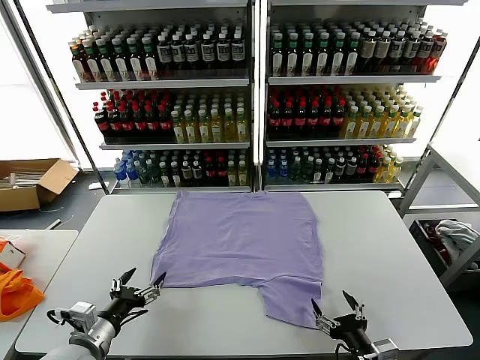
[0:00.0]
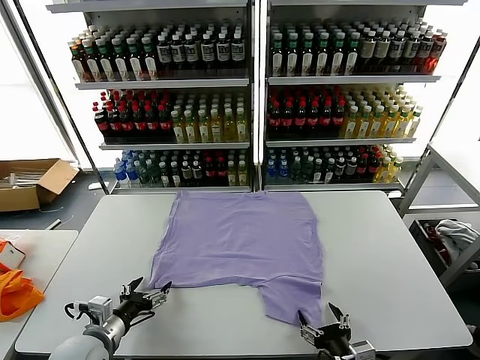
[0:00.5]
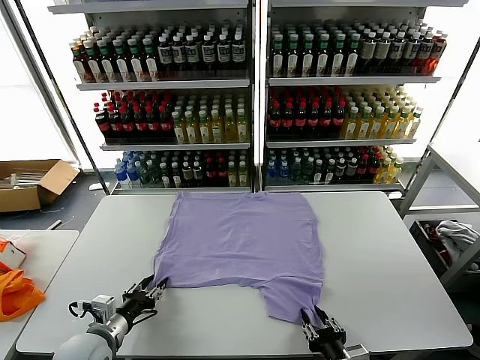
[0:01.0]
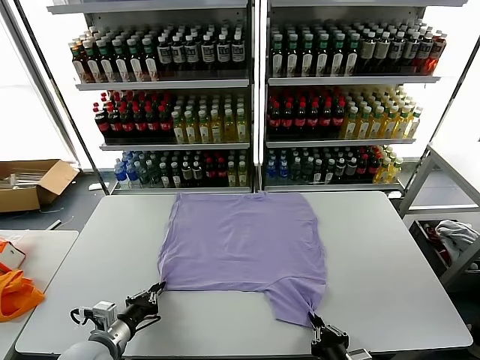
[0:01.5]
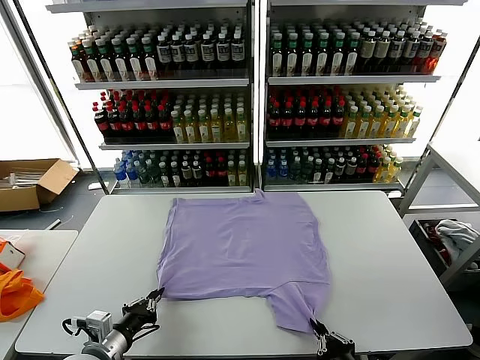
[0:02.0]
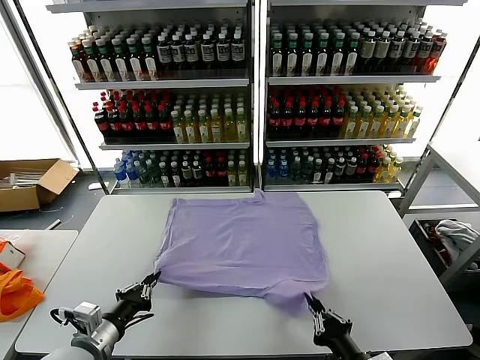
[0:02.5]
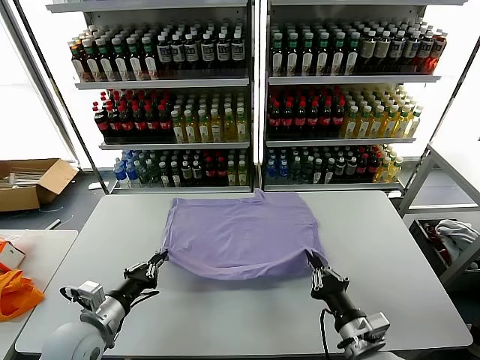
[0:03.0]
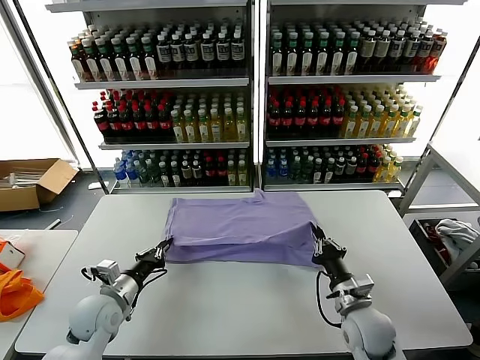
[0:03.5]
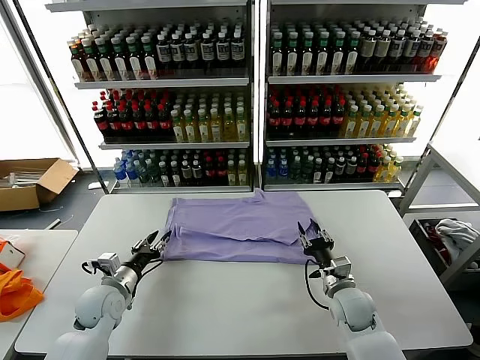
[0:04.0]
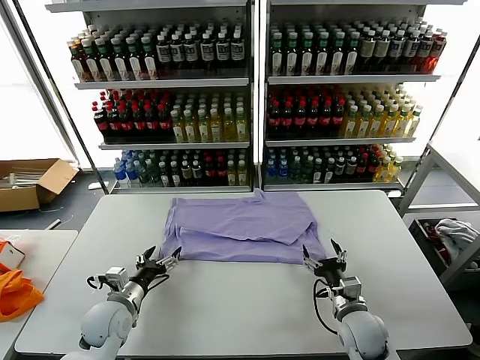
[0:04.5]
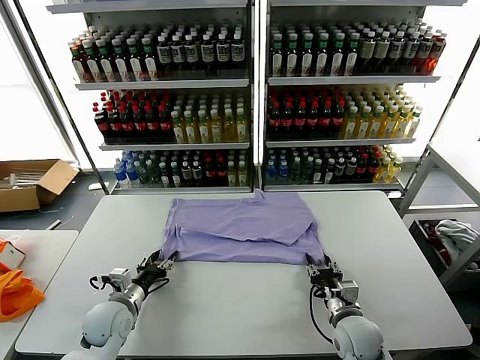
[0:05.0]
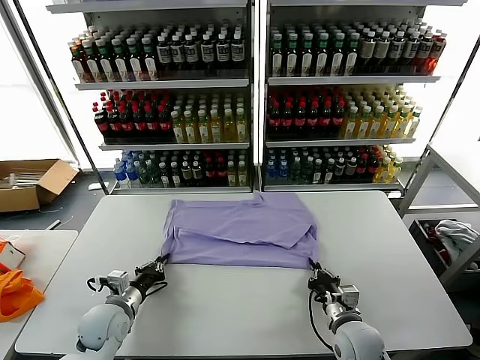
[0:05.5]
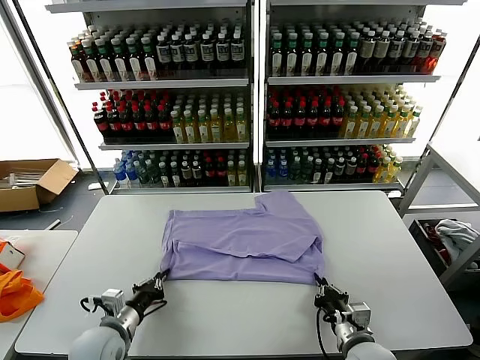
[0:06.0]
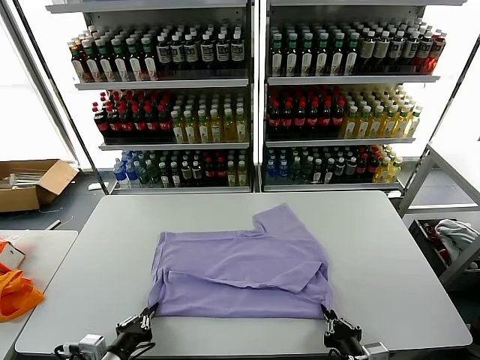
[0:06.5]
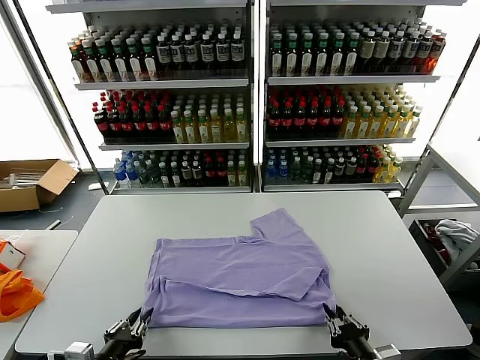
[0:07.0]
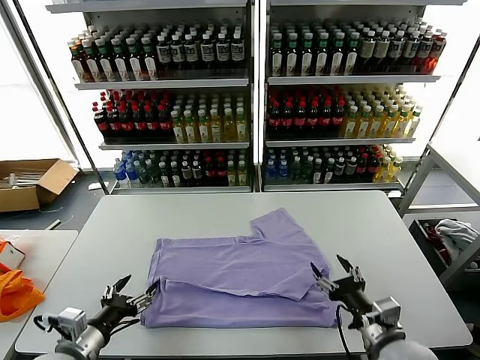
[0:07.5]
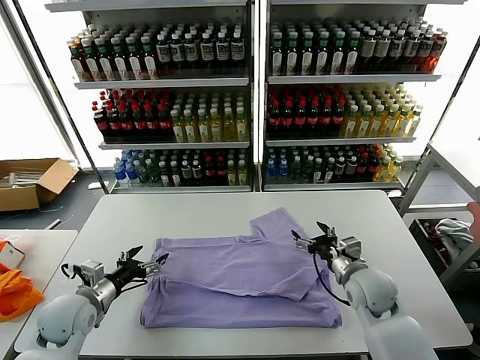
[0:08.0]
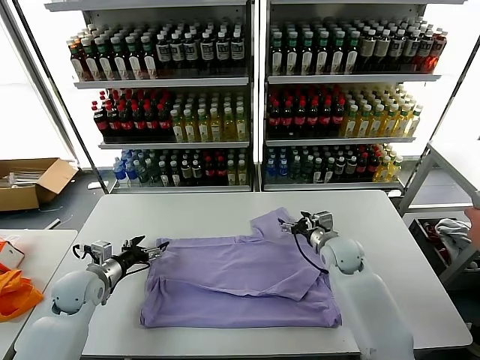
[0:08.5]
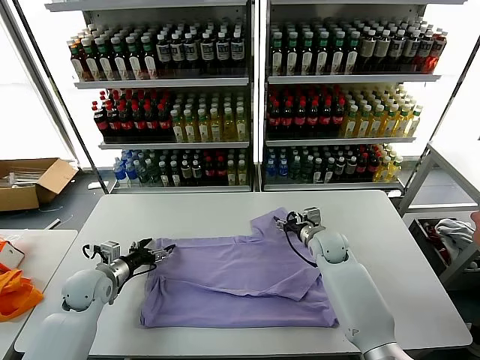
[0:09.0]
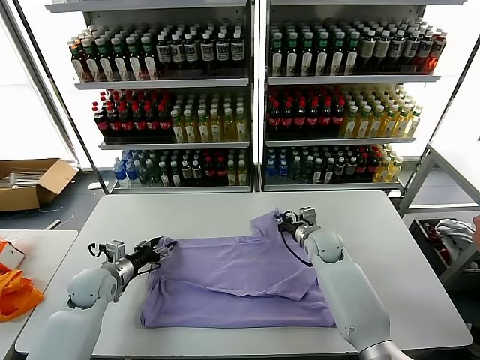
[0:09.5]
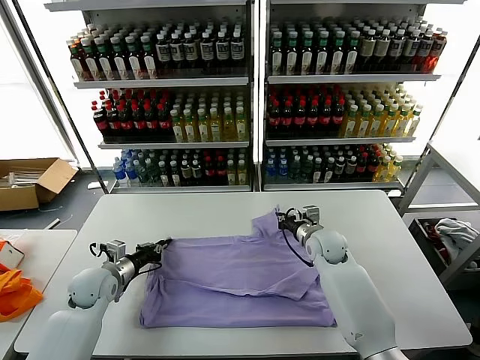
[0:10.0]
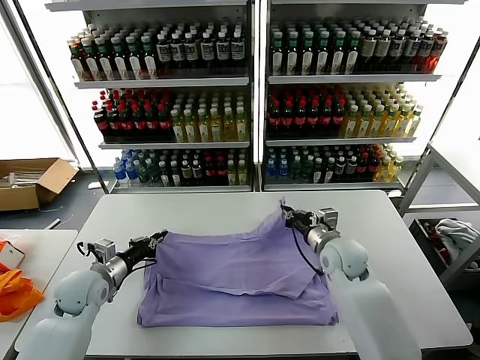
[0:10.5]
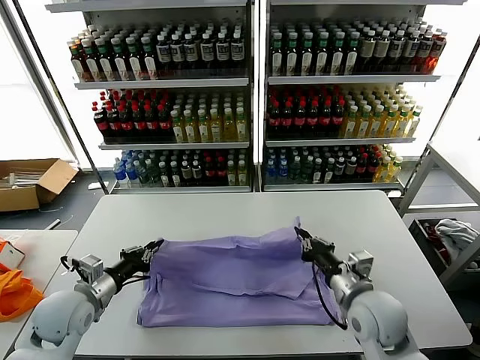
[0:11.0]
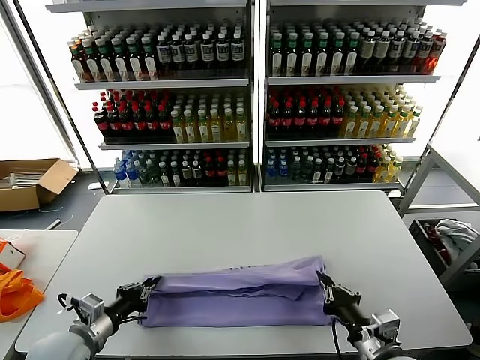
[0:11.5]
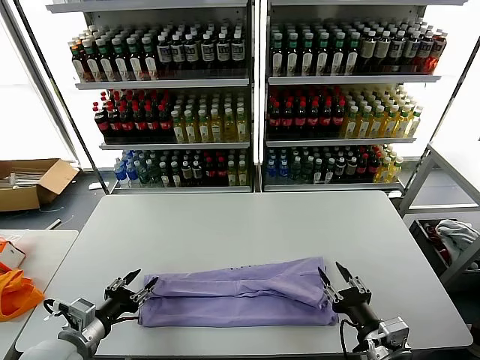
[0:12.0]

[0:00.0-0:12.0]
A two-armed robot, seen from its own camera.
Task of the whole recording: fold and organize the clothes.
Step, 0:00.0 to 0:02.0: use both grippers simultaneously to clamp the lower edge of the clothing fabric.
Step, 0:02.5 to 0:04.0: use both grippers to drag the lower edge of the fabric forward and fold it over the upper edge.
Step, 0:04.5 to 0:07.0: Drag the clothes downward with both gripper.
Step, 0:07.5 to 0:10.0: use both grippers simultaneously to clamp the upper edge of the clothing fabric.
Step, 0:10.5 to 0:11.5: use both grippers to drag the upper edge of the fabric backward and fold it over the lower edge.
0:02.0 to 0:04.0: The right gripper heads forward, covering approximately 25 cm, and opens; the left gripper heads forward, covering about 15 cm, and opens.
0:04.0 to 0:06.0: Both grippers travel together backward, about 10 cm. The left gripper closes up. Meanwhile the right gripper closes.
0:06.0 to 0:08.0: The right gripper moves forward and upward, roughly 15 cm, and opens up; the left gripper is displaced to the left by about 5 cm, reaches about 10 cm backward, then returns, and opens up.
0:08.0 to 0:10.0: The left gripper heads forward, covering about 10 cm, and closes its fingers, while the right gripper travels forward and to the left by approximately 15 cm, and closes up.
0:10.0 to 0:12.0: The right gripper moves backward, approximately 30 cm, and opens its fingers, while the left gripper travels backward by approximately 20 cm, and opens its fingers.

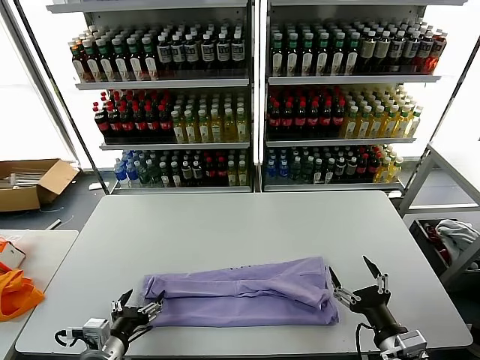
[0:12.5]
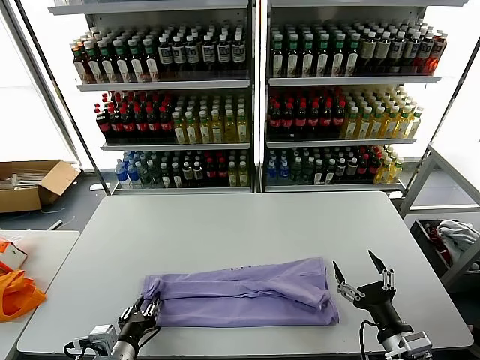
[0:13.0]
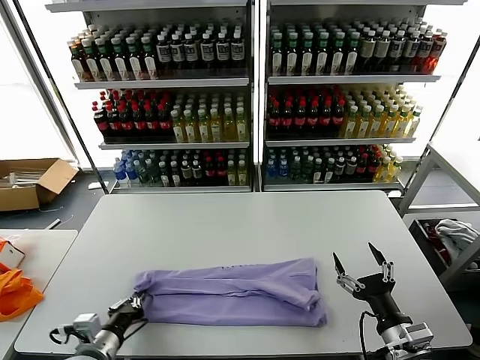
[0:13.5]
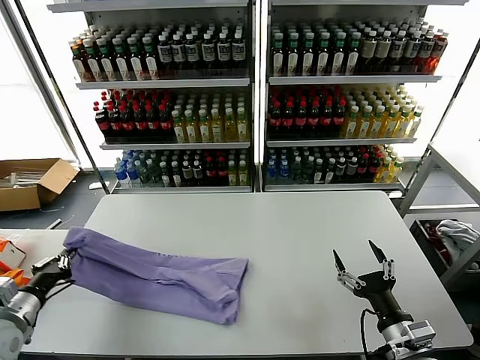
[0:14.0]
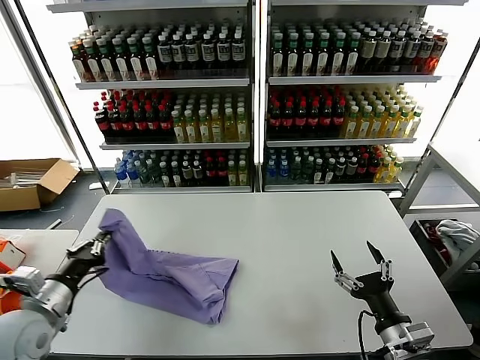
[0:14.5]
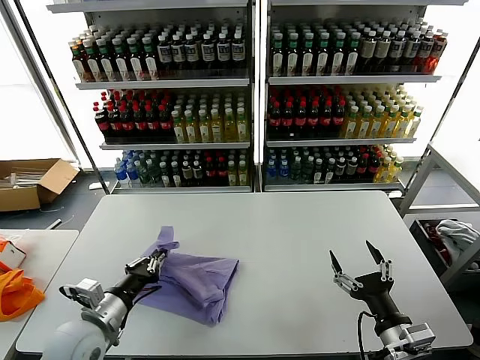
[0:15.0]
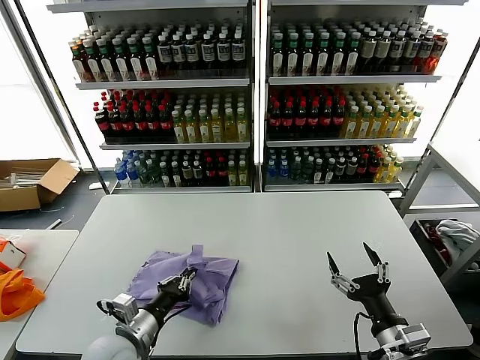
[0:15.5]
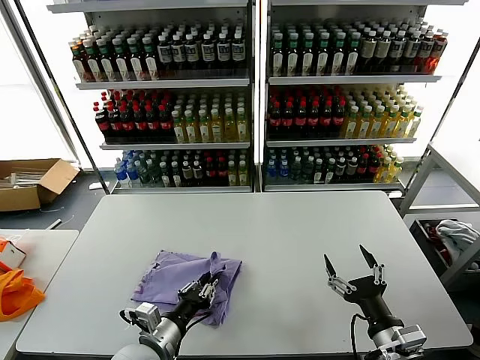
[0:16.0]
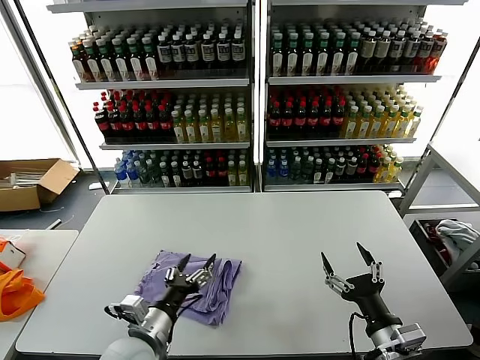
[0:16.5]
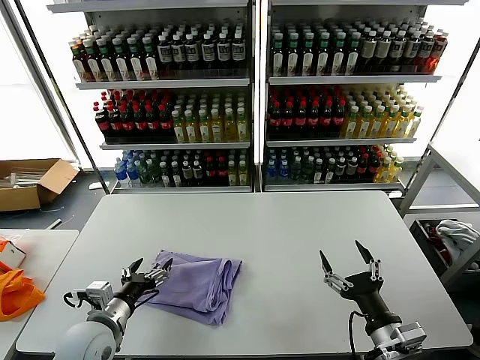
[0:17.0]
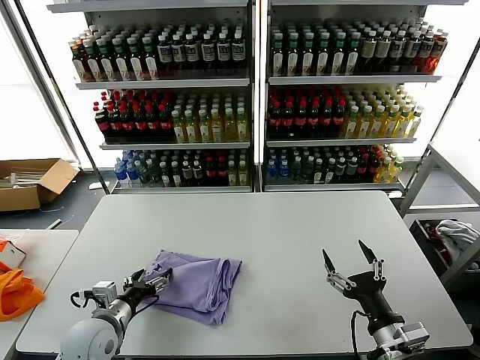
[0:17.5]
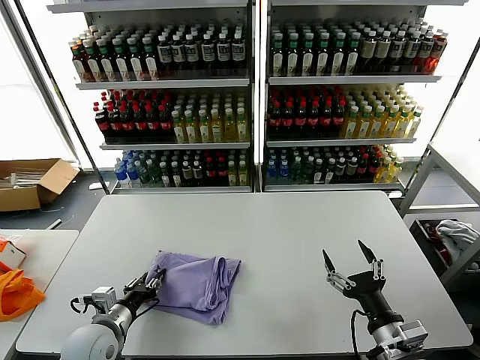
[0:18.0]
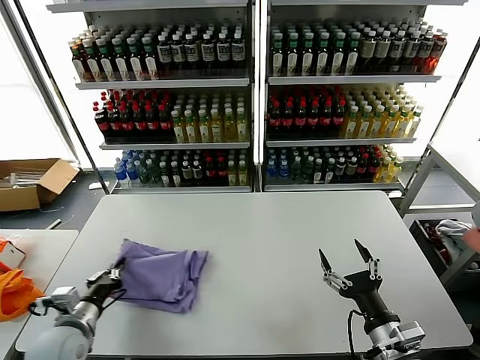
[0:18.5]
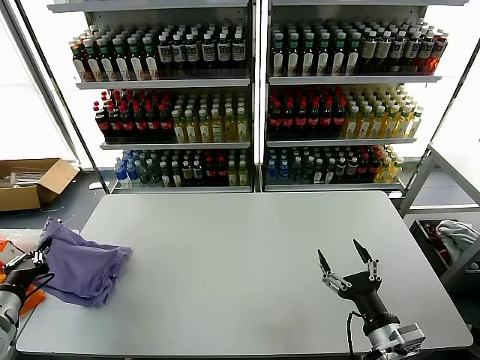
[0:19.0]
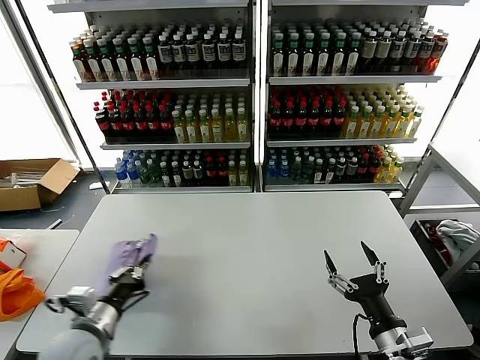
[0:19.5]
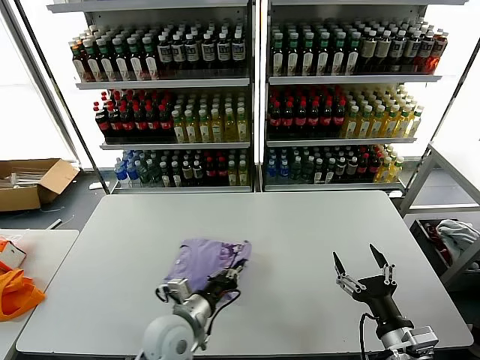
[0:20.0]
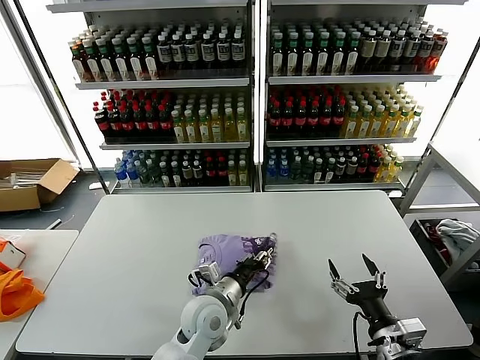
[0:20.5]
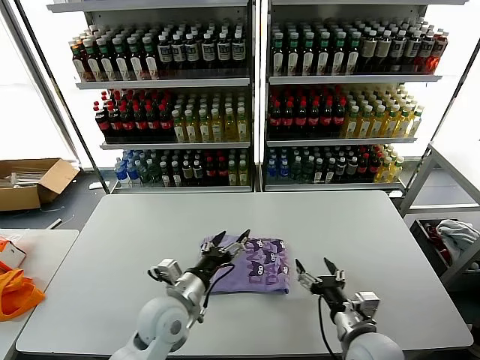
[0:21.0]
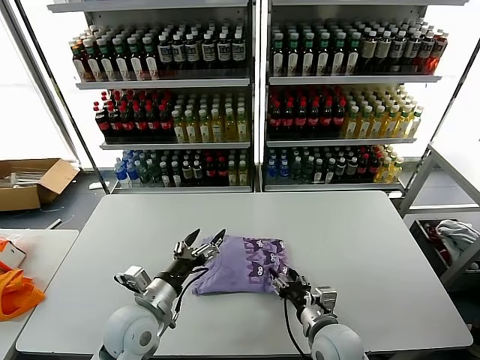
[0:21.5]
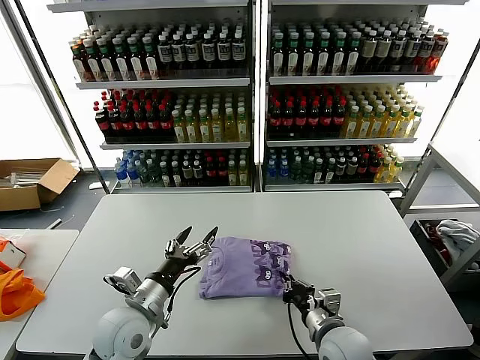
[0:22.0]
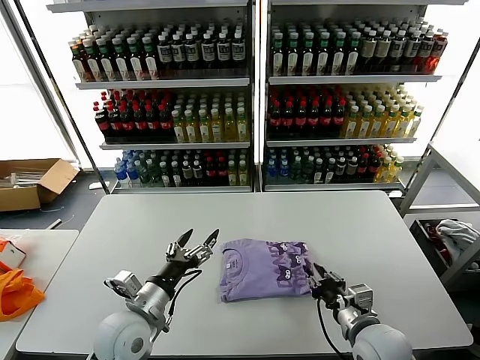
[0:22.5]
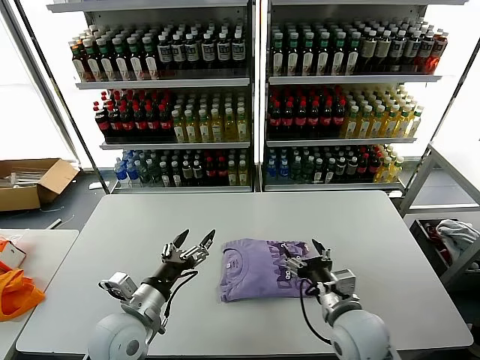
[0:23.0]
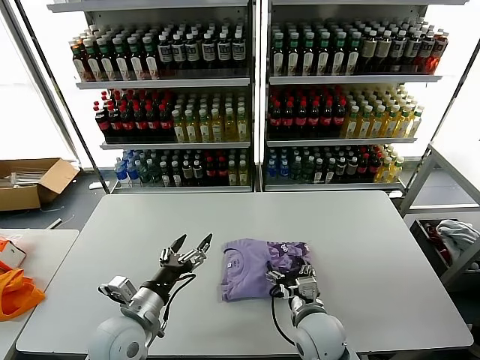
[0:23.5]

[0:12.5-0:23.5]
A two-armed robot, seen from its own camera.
Task of the whole recording: fold and organize the clothes.
Step, 0:13.5 to 0:16.0: use the left gripper to drag the left edge of the fabric to the left and folds it over the right edge.
Step, 0:16.5 to 0:20.5: Flip the folded clothes over with left gripper.
0:12.5 to 0:14.5: The left gripper heads to the left, upward and forward, covering roughly 15 cm, and closes up.
0:14.5 to 0:16.0: The left gripper is displaced to the right and downward by some 20 cm.
0:16.0 to 0:18.0: The left gripper moves to the left, approximately 10 cm, and opens and closes again.
0:18.0 to 0:20.0: The left gripper is displaced to the right by roughly 15 cm, and closes its fingers.
0:20.0 to 0:21.5: The left gripper heads to the left, covering roughly 5 cm, and opens; the right gripper shifts some 15 cm to the left, forward and downward.
0:21.5 to 0:23.5: The right gripper closes, then reopens.

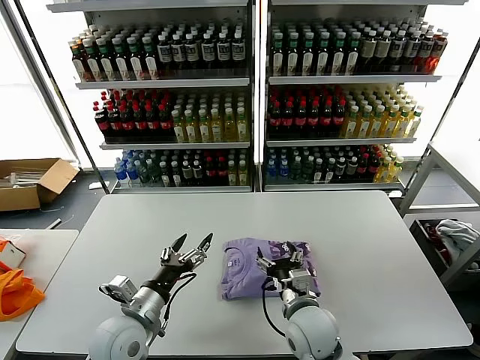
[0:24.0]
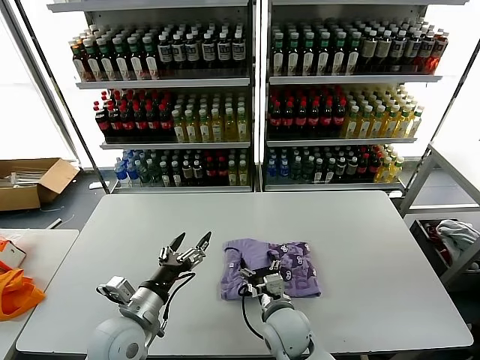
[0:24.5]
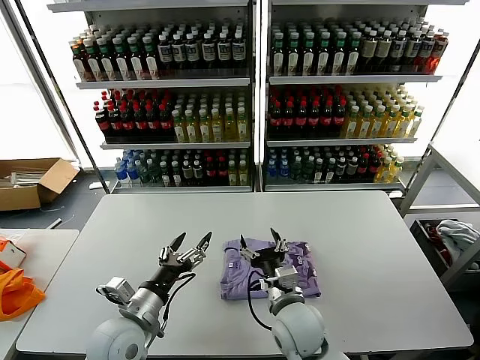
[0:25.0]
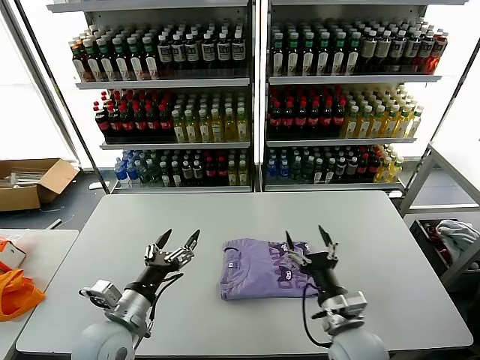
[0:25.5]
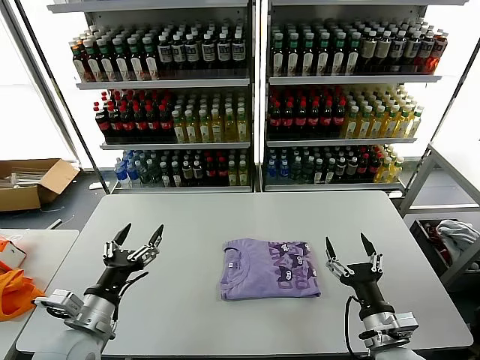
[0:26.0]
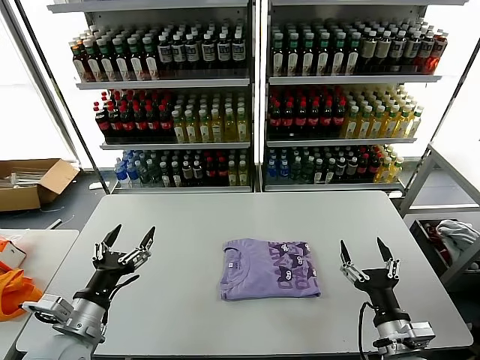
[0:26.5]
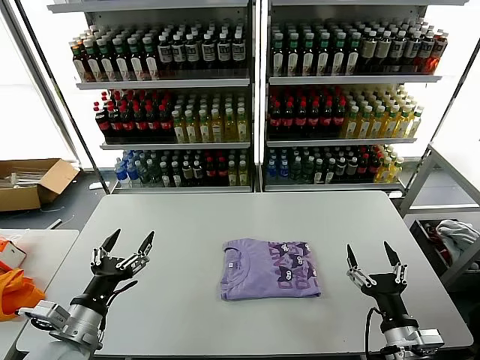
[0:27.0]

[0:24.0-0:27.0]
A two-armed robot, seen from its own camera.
Task of the whole recording: fold and organize the clothes.
0:24.0 to 0:25.5: The right gripper travels to the right by approximately 5 cm.
0:25.5 to 0:27.0: The left gripper heads to the left, covering about 5 cm; the right gripper is displaced to the right and backward by approximately 15 cm.
